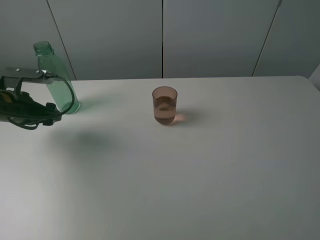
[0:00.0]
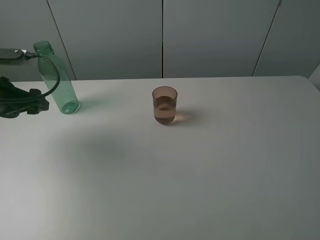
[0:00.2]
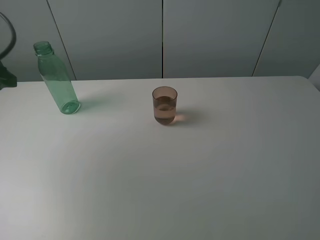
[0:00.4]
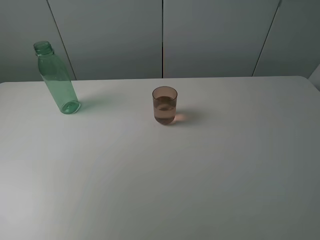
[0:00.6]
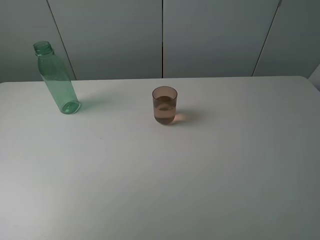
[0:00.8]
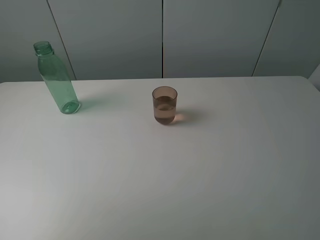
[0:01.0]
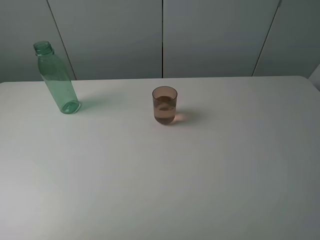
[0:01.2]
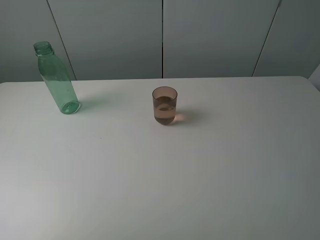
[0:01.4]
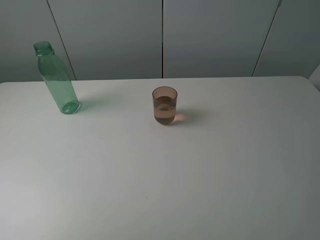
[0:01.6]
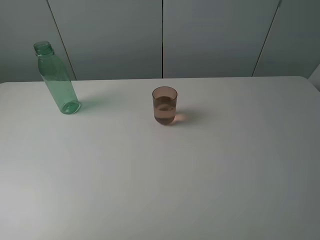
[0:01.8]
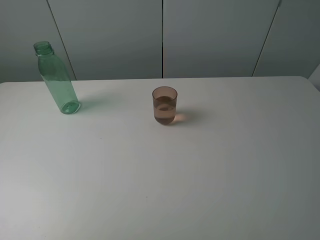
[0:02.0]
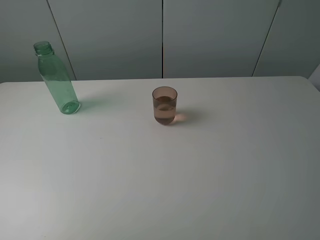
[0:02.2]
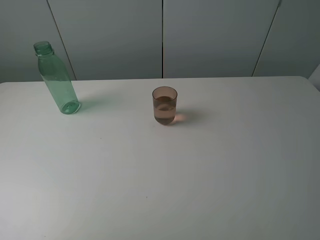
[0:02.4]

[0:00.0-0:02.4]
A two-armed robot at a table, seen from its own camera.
Task of the whole recording: pick up the bottle filled with water and pour it into the pink cup.
0:00.0 to 0:01.2: The left gripper moves backward and upward, about 30 cm.

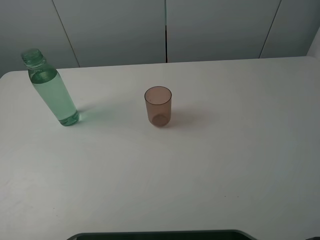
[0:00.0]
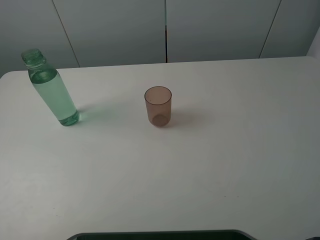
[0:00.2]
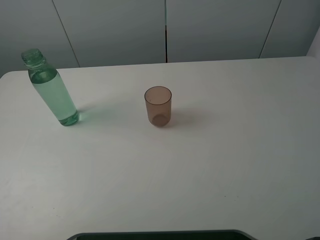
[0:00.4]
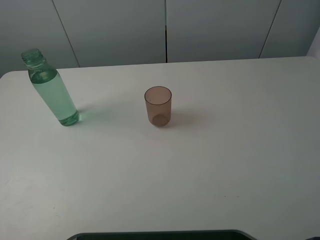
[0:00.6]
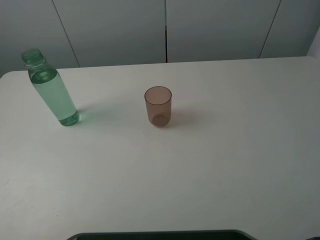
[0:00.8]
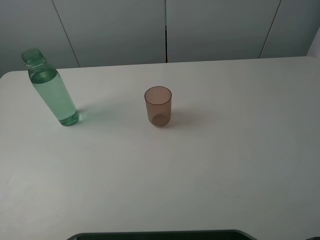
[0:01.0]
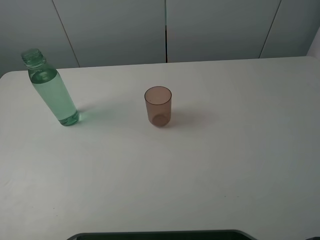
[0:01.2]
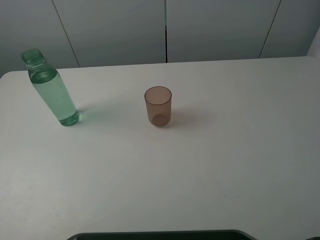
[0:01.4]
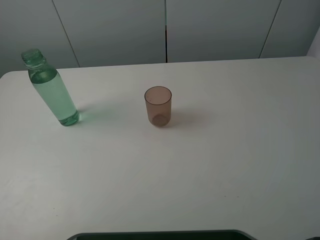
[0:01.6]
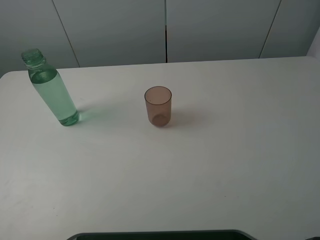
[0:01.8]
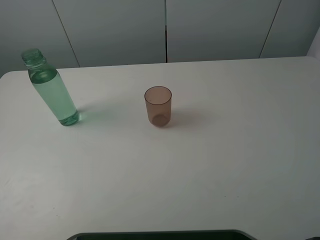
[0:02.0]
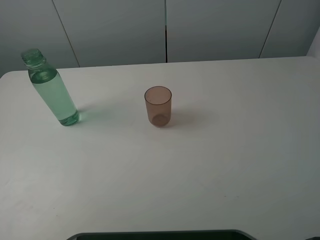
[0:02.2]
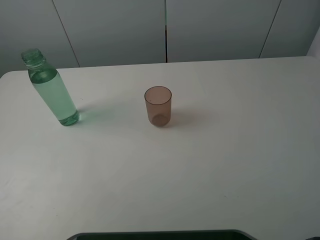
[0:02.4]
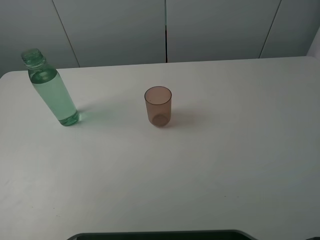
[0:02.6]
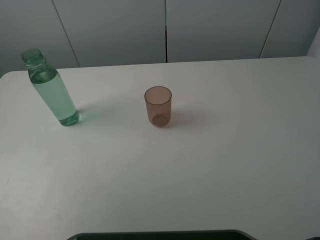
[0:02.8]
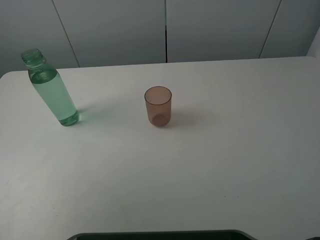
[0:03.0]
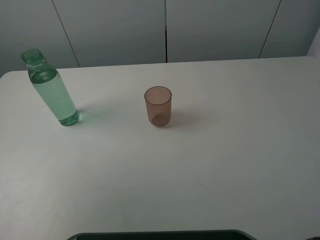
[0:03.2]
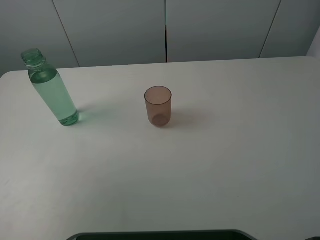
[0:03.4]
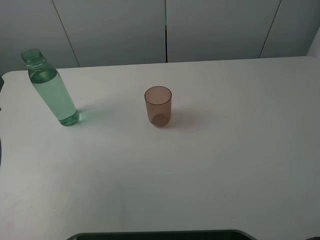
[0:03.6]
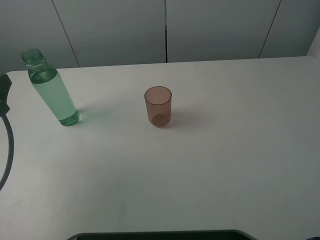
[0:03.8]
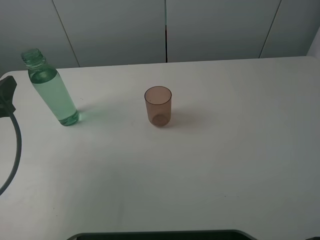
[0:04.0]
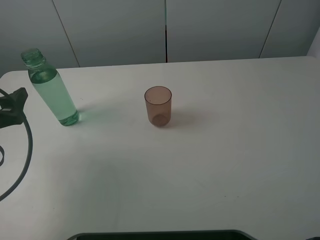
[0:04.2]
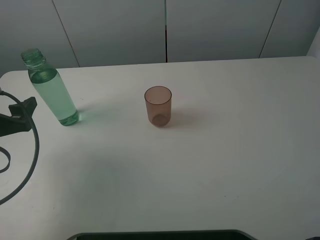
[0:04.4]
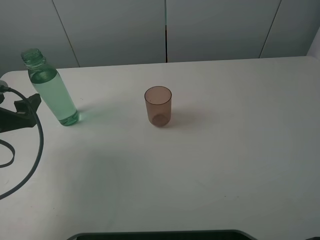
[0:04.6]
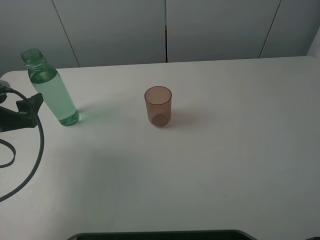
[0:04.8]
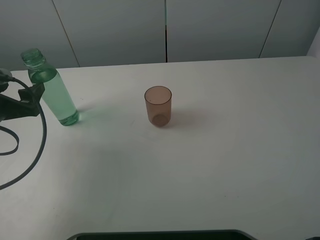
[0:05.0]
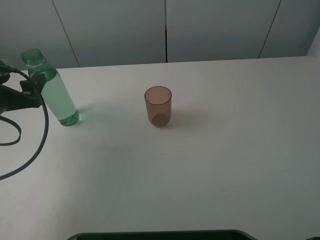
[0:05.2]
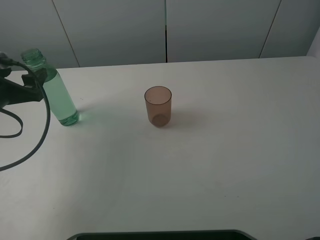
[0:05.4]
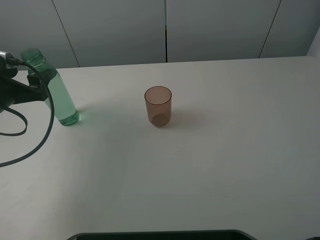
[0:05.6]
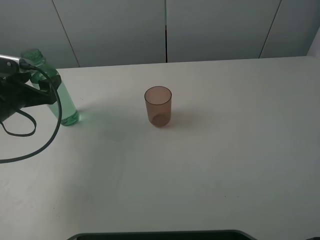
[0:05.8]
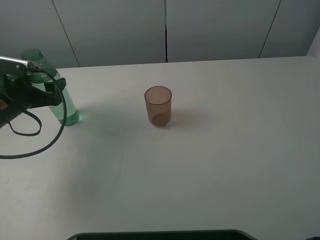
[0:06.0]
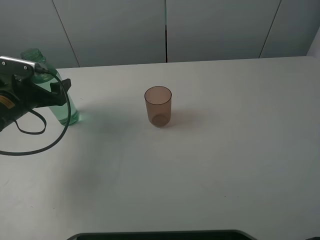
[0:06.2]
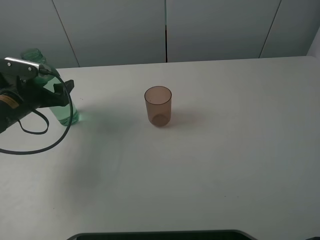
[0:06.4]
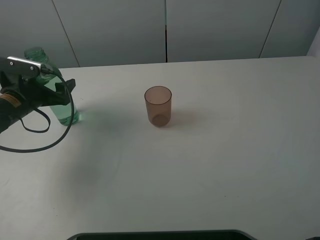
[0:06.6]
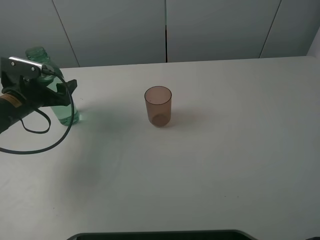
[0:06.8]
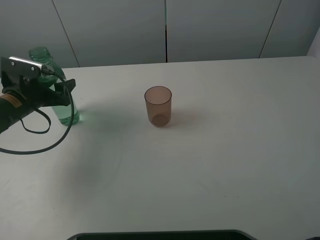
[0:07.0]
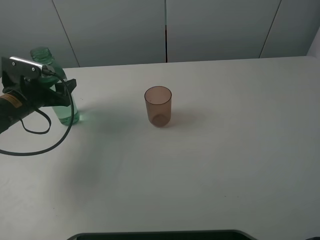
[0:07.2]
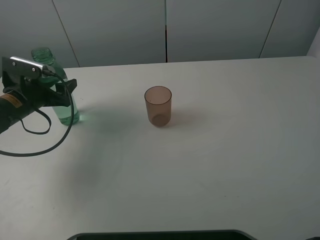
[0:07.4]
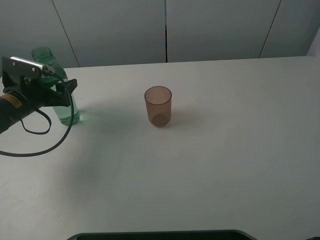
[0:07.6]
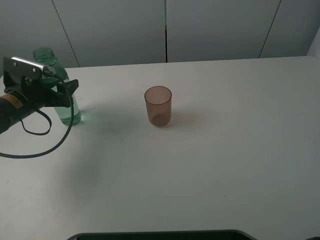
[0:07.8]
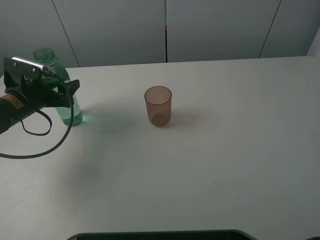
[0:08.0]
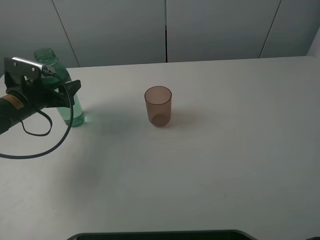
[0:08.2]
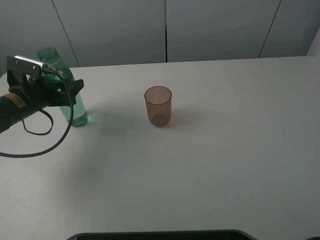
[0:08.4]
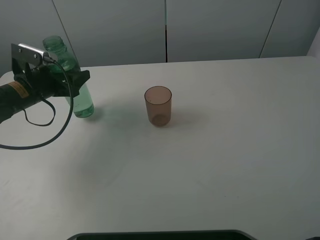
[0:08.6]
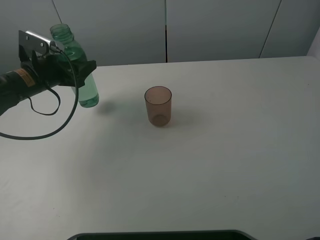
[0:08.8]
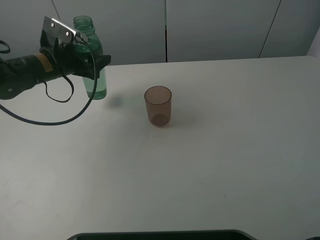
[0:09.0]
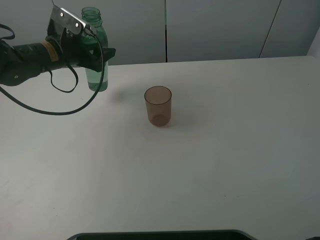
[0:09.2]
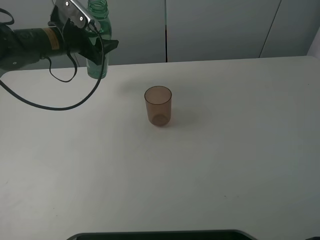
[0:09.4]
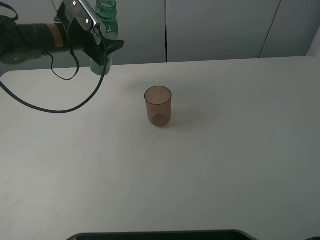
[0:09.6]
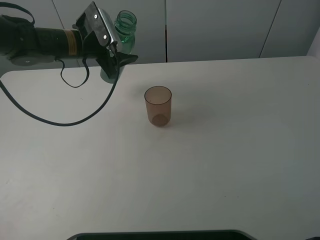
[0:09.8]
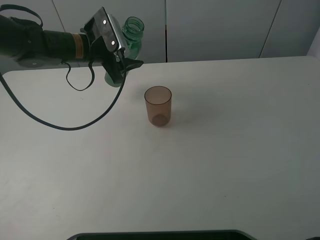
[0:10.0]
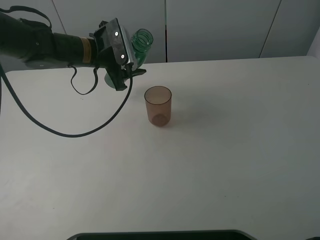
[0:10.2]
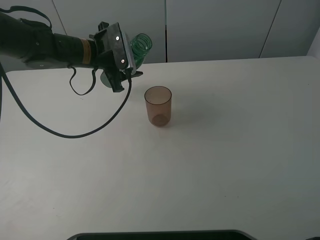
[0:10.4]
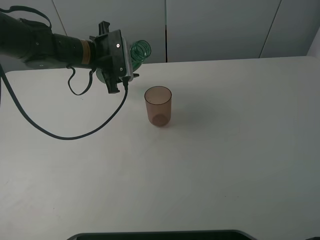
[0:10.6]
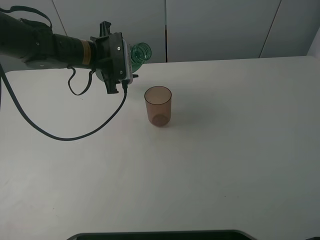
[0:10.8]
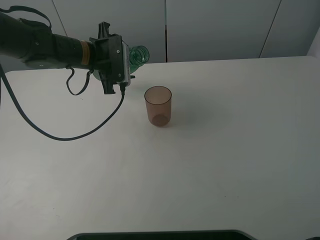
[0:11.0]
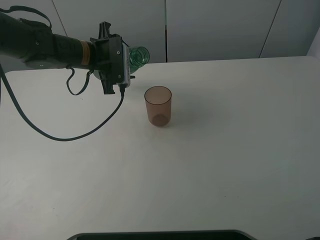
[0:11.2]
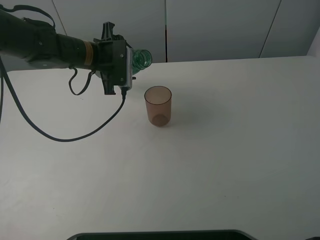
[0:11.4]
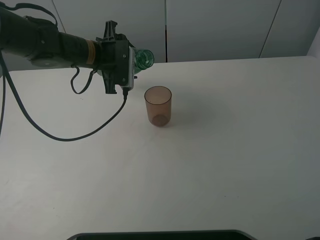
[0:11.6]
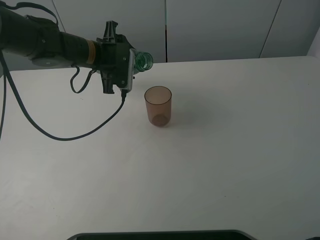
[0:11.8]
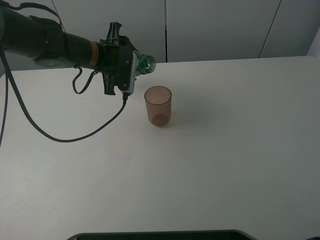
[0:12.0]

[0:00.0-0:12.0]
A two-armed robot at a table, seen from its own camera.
Task of the whole recording: pick up the bottle filled with water and pour it into the pink cup.
Step, 0:00.0 to 0:07.2: Grasp the green bottle with the left gripper.
0:00.0 to 0:01.6: The two grippers keep their place.
0:01.6 to 0:03.0: The left gripper goes roughly 15 cm forward and downward.
0:03.0 to 0:04.4: The left gripper is displaced downward and forward by roughly 10 cm.
0:04.4 to 0:06.0: The left gripper moves forward, about 10 cm.
0:06.0 to 0:07.6: The left gripper closes up.
0:07.6 to 0:09.0: The left gripper heads to the right, forward and upward, covering approximately 10 cm.
0:09.0 to 0:10.4: The left gripper is displaced to the right by some 10 cm.

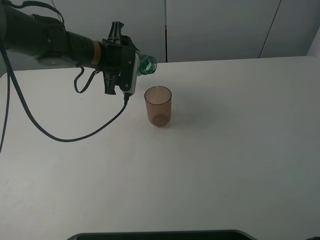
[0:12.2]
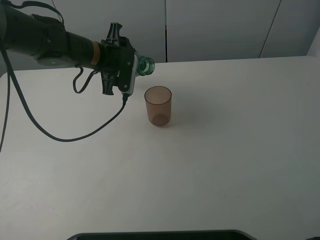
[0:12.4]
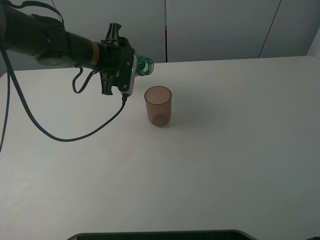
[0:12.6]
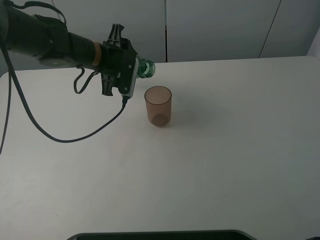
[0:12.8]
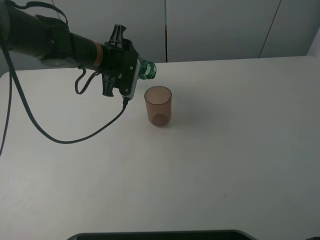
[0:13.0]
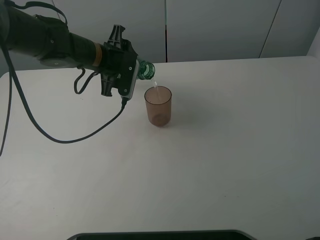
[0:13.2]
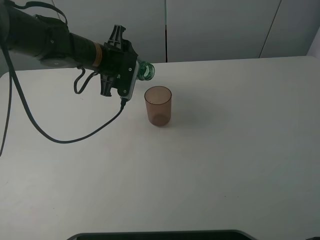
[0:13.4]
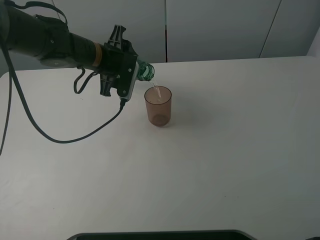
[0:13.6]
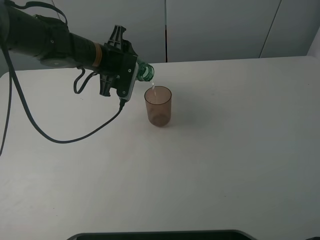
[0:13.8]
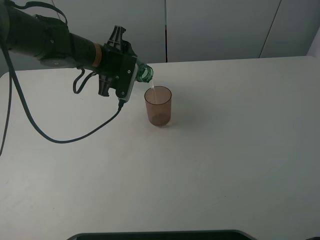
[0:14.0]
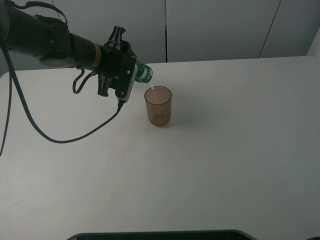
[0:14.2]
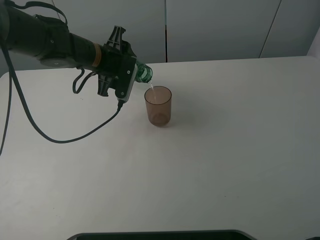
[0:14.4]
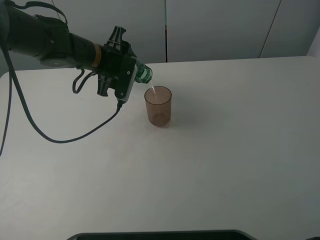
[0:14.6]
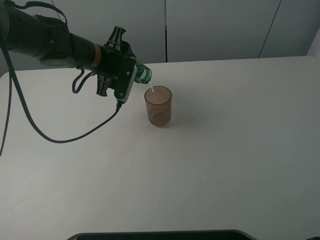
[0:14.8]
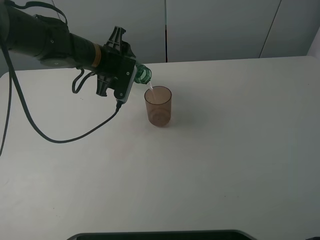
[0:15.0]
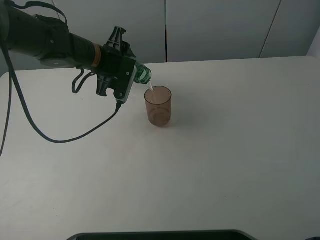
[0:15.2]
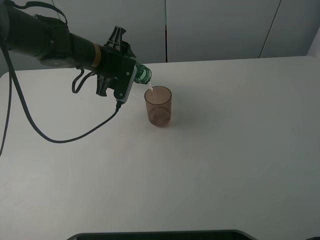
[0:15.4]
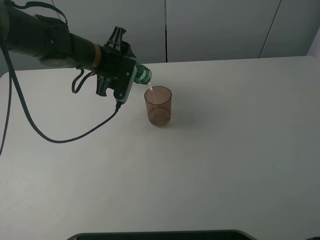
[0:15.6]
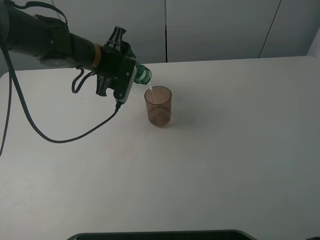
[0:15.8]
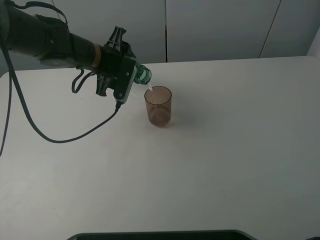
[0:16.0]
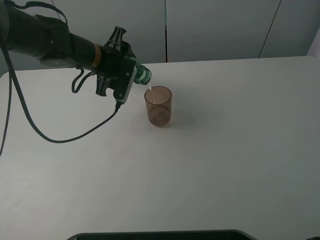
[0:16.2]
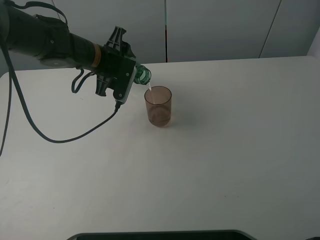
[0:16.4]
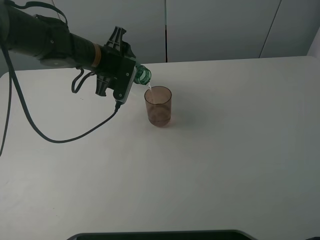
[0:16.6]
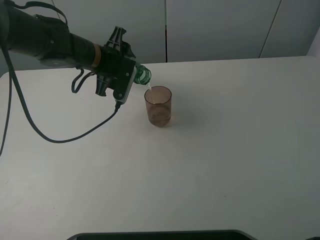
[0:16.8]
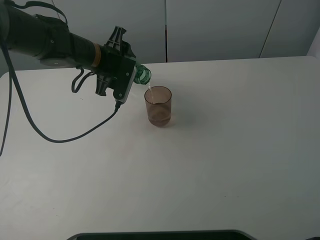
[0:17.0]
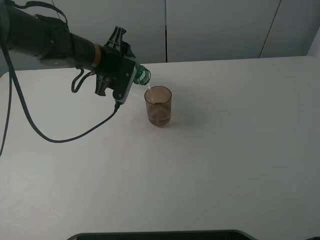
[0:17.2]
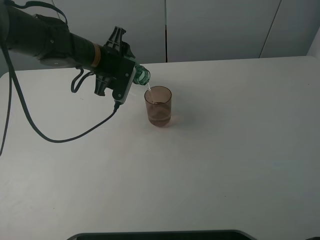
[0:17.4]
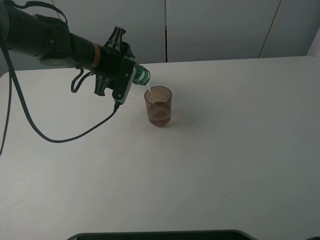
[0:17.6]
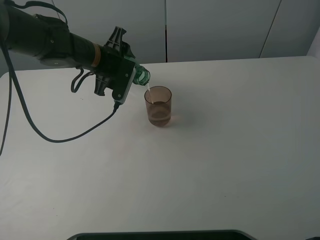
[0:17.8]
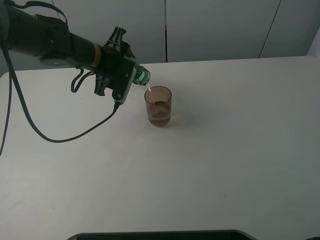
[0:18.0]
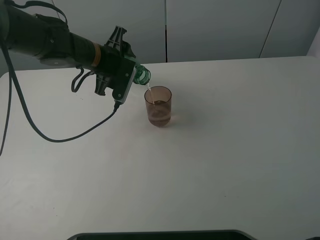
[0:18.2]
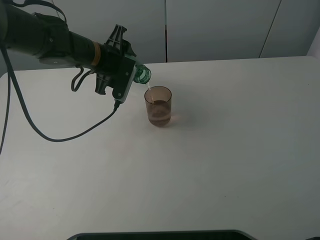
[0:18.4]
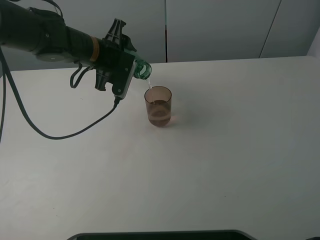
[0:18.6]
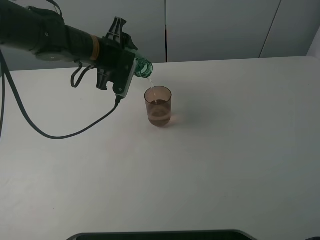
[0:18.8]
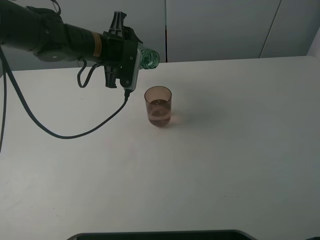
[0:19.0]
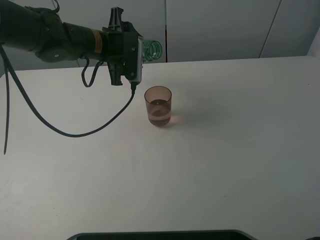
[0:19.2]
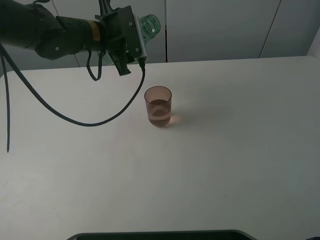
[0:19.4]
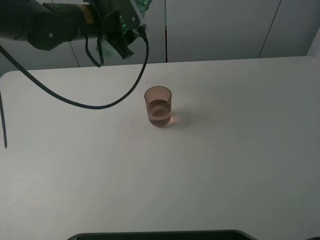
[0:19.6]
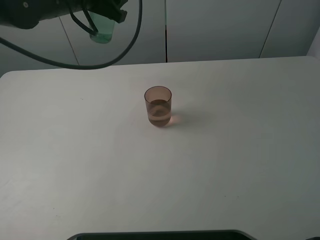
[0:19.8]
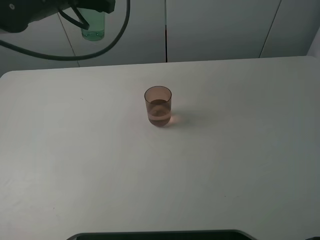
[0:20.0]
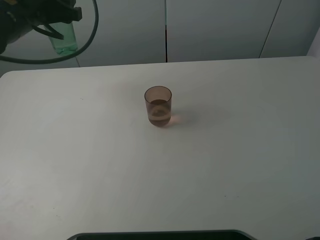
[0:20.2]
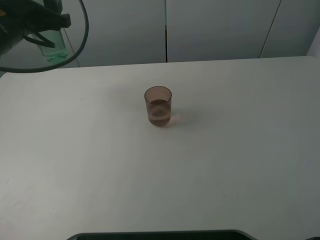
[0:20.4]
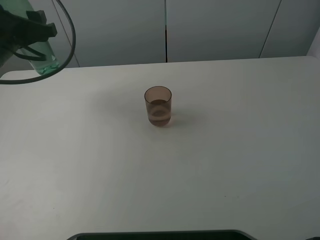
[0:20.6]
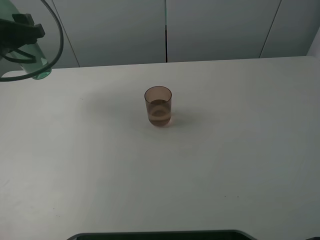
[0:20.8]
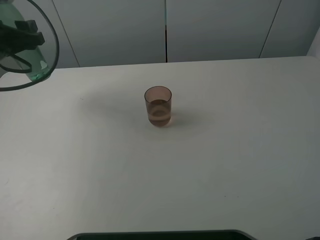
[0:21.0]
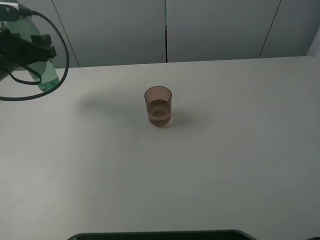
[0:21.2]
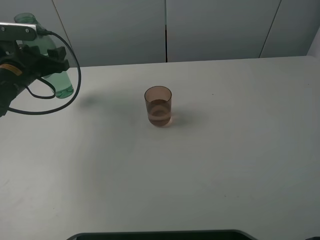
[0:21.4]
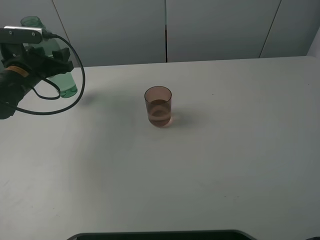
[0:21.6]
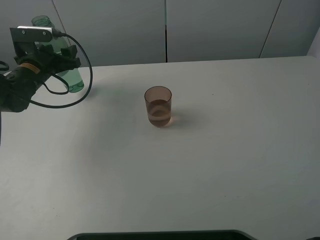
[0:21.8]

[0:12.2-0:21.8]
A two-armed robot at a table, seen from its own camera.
Task of the whole recording: pick up the bottle filled with water and pour it into the pink cup.
Step, 0:12.2 to 0:19.0: Pour water from green bottle to pink cup with the left gripper.
0:12.2 to 0:13.8: The grippers move only a little.
0:13.8 to 0:17.0: Neither gripper changes place.
0:17.0 to 0:18.6: The two grippers keep their place.
0:18.6 to 0:20.2: The left gripper moves to the left and upward, roughly 15 cm.
0:20.2 to 0:21.8: The left gripper moves downward, about 15 cm.
